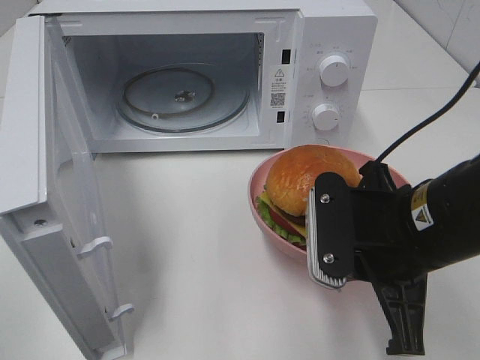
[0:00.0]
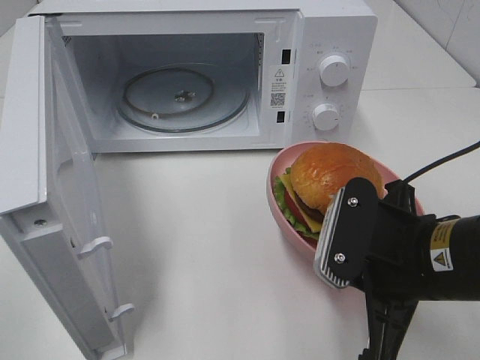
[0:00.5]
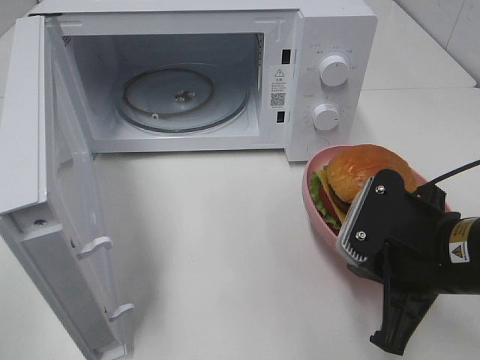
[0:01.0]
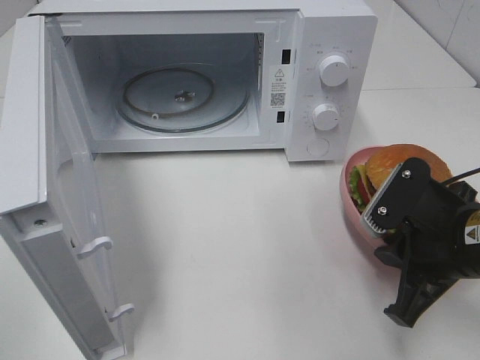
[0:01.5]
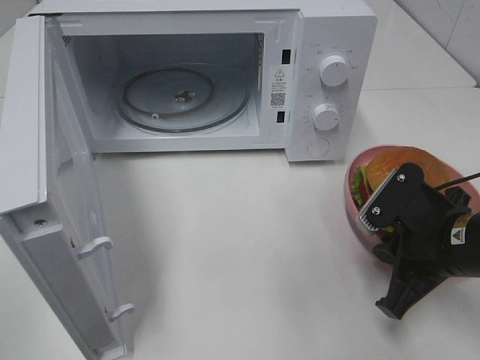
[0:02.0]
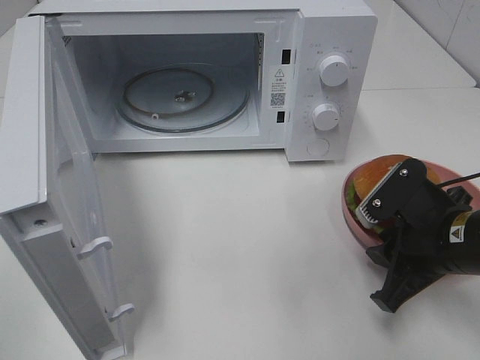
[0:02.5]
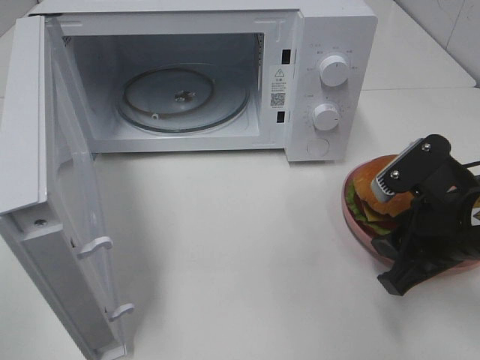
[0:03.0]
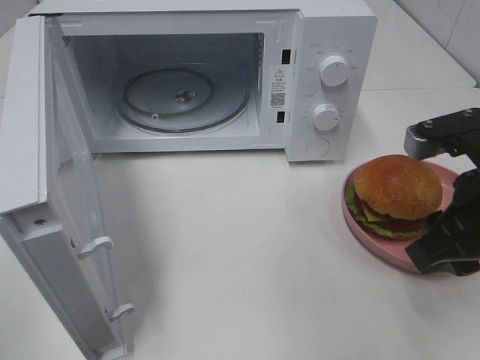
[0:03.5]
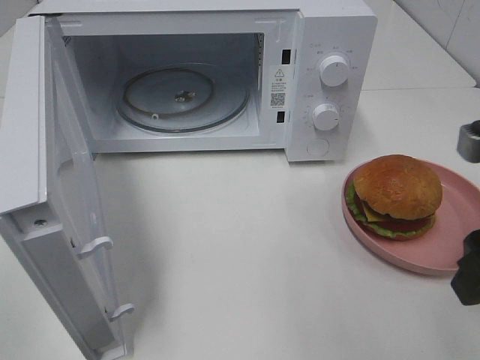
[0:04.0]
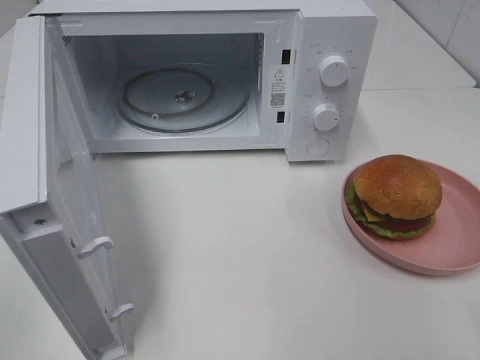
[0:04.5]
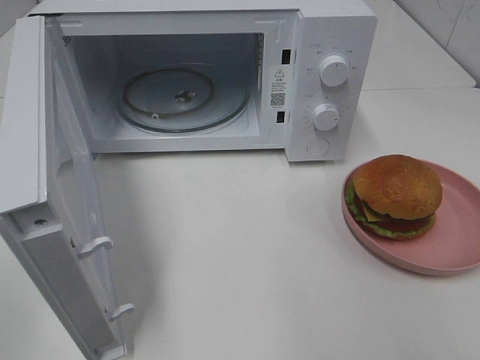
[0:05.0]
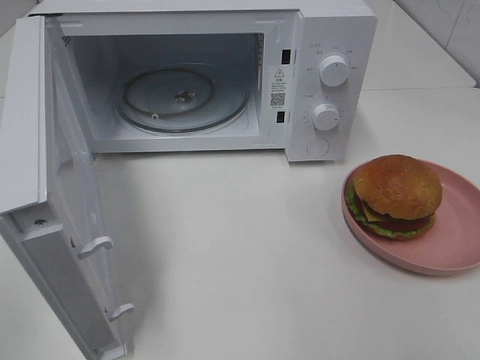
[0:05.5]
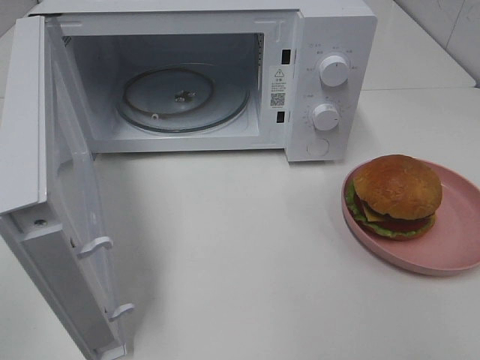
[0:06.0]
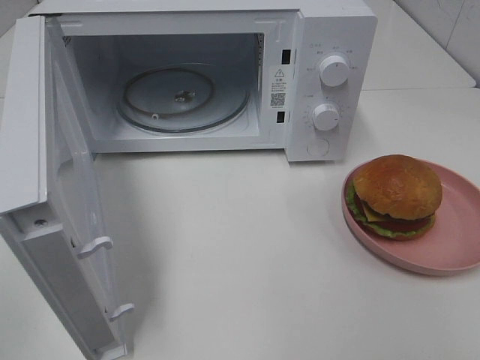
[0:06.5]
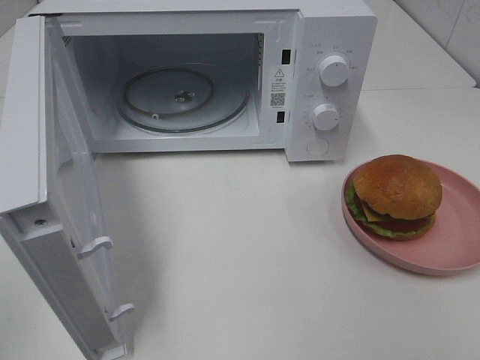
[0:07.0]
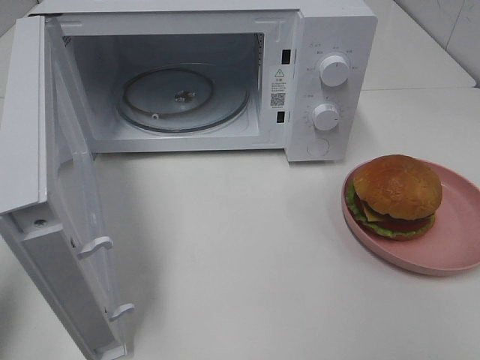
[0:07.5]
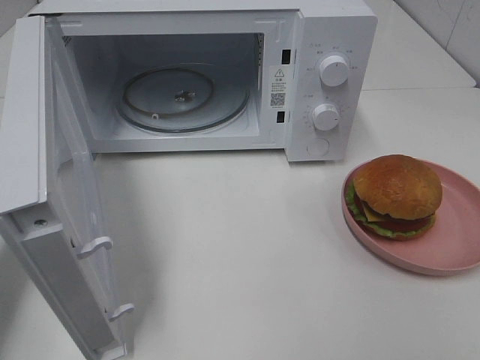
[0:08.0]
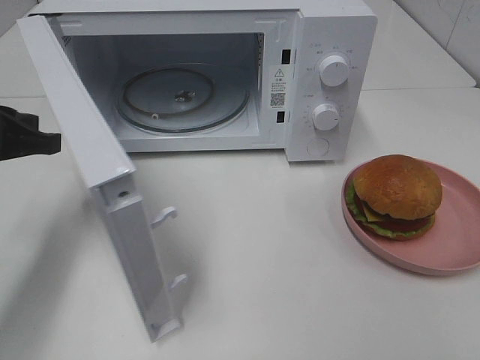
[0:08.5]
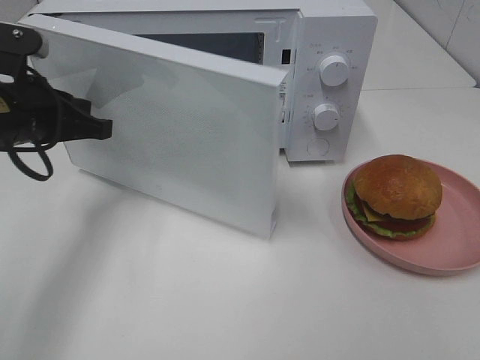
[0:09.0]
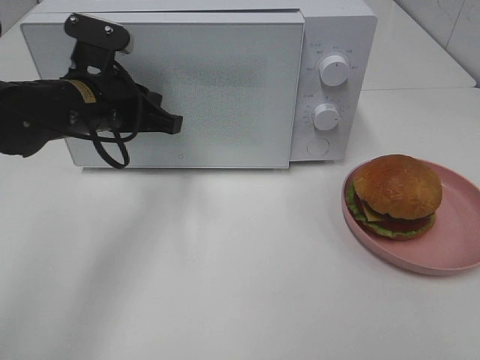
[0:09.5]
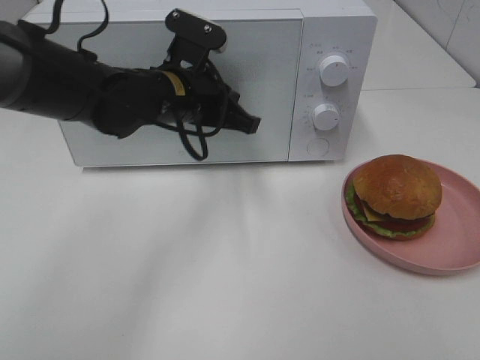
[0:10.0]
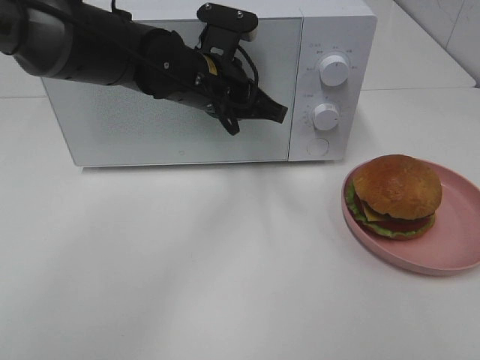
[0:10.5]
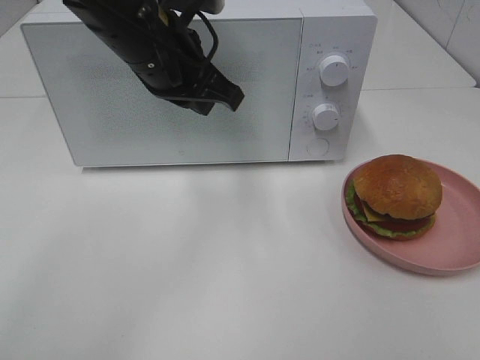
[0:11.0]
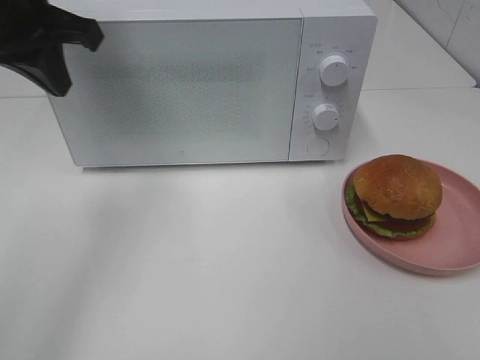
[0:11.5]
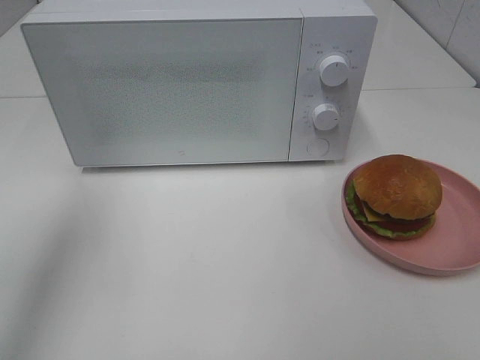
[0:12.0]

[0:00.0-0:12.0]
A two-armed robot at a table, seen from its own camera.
Task of the whole recording: Heat the burger.
Step, 0:00.0 to 0:02.0: Right hand: place the plate on the table.
Step, 0:02.5 to 0:10.5: Left hand: close the microwave door.
0:00.0 to 0:06.0: Neither gripper changes place.
0:06.0 to 0:08.0: The left gripper heads forward, covering roughly 20 cm.
0:08.0 to 0:10.0: The left gripper travels to the right and forward by about 30 cm, and opens its fingers.
0:10.0 to 0:12.0: The left gripper moves to the left, upward and backward, some 30 cm.

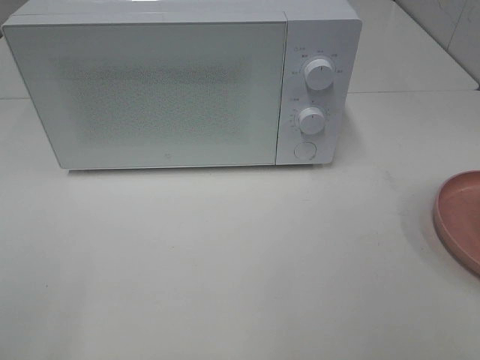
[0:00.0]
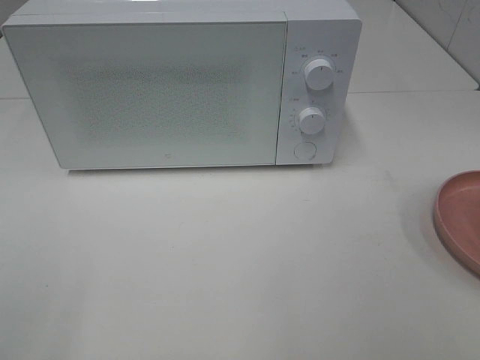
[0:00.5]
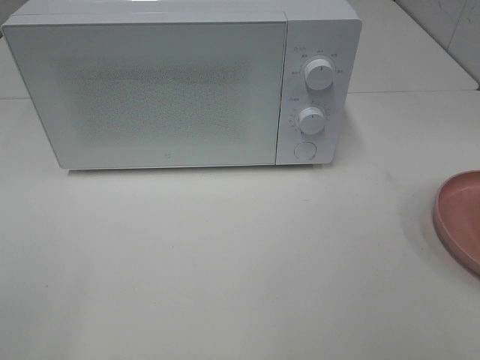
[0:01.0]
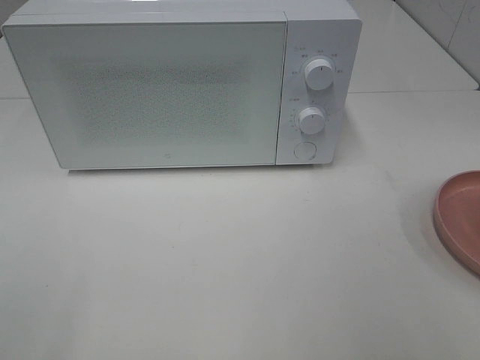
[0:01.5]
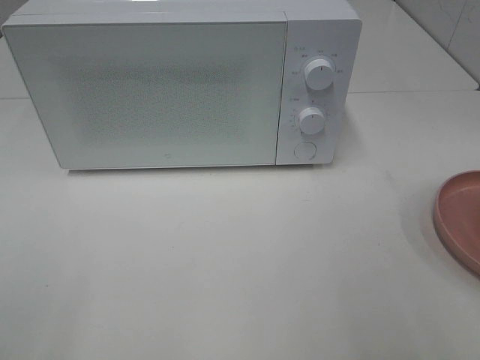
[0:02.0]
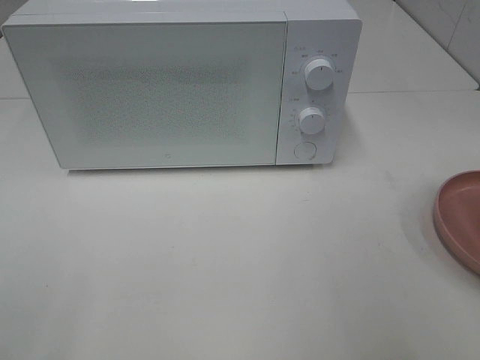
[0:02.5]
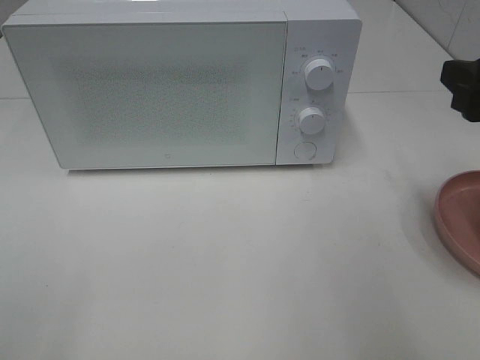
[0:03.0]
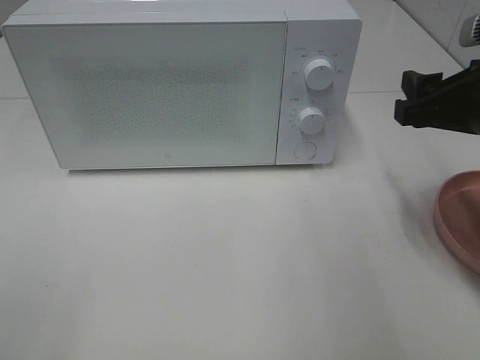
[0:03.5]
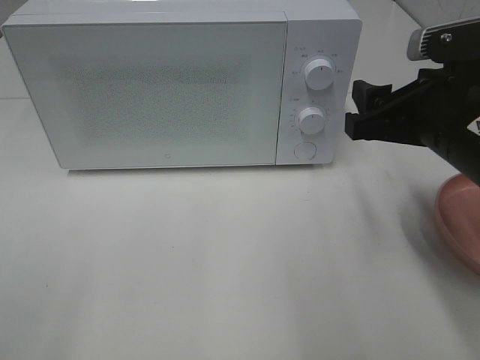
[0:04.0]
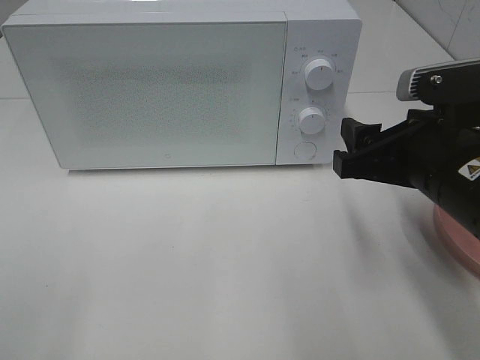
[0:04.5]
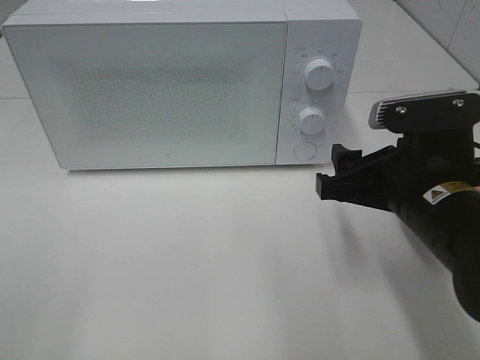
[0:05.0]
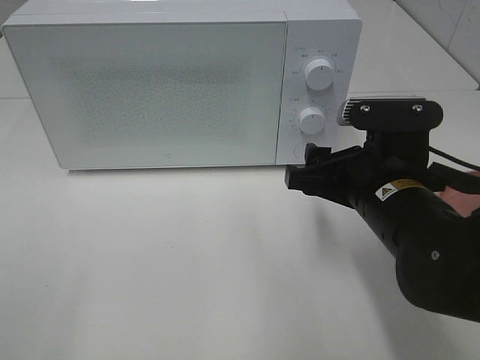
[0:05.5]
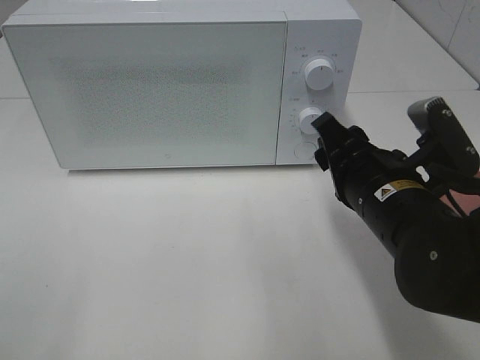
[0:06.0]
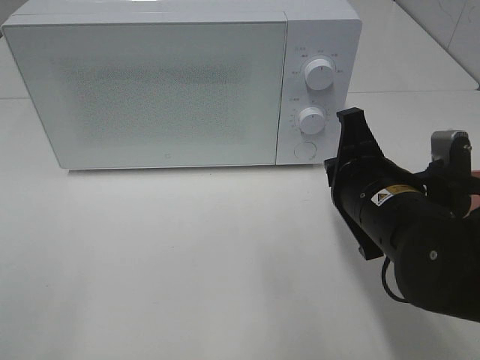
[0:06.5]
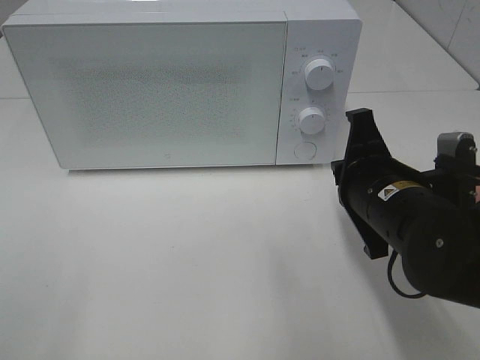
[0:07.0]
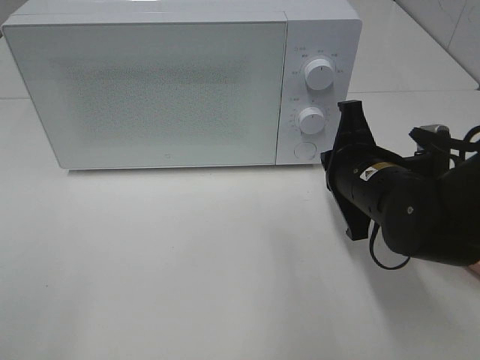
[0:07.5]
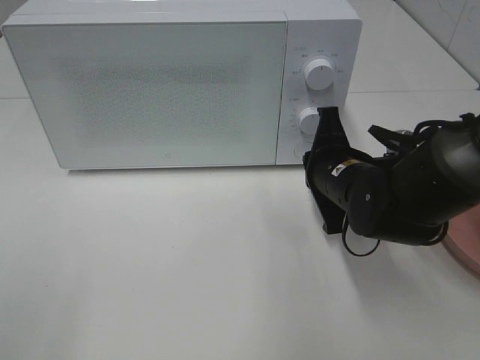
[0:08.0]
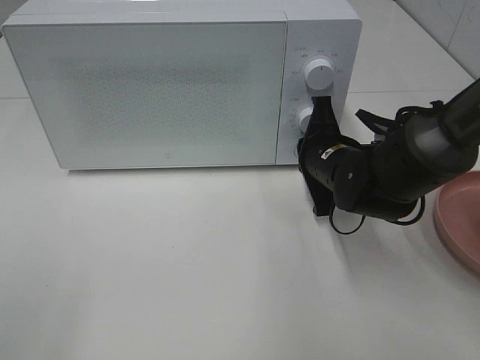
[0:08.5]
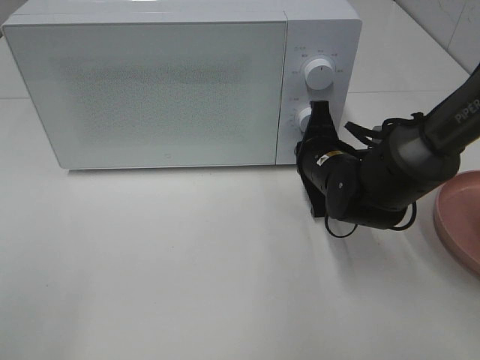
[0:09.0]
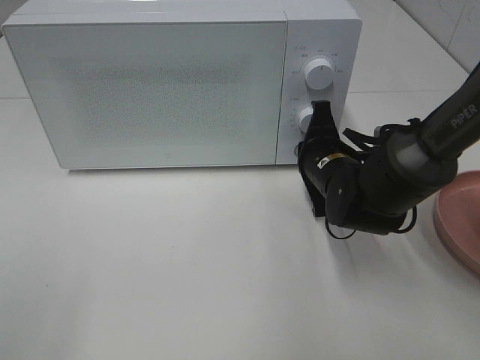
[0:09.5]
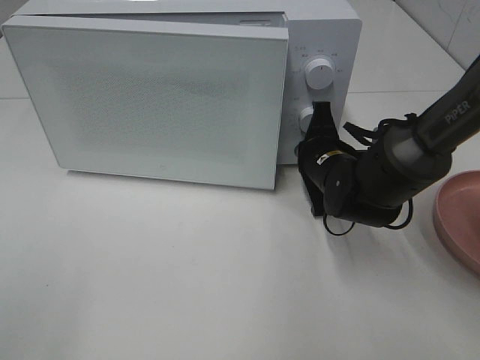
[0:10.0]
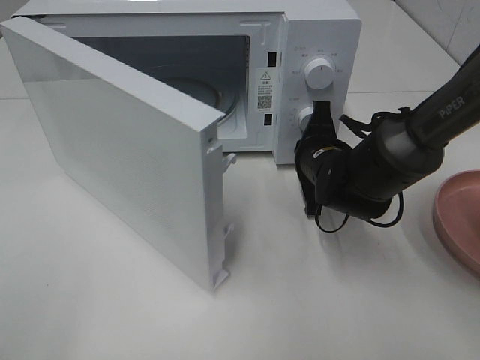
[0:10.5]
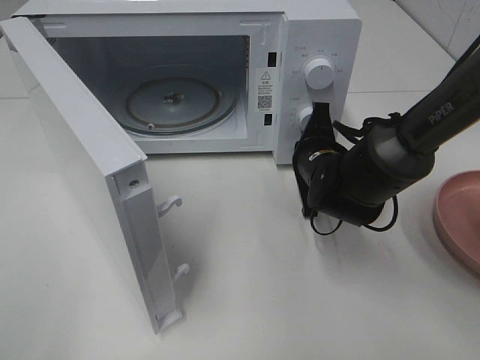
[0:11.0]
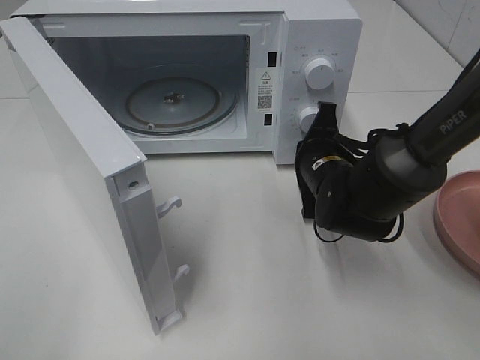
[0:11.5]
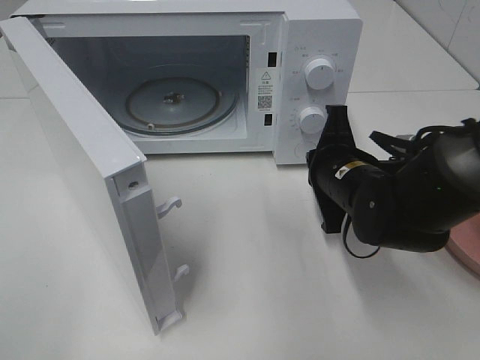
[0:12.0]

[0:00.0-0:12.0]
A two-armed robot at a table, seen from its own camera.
Task of the whole recording: Heat the burger.
Step, 0:00.0 to 0:11.5: Right hand: press the switch.
0:02.0 to 0:04.0: The right gripper is displaced forward, to the left and downward by approximately 20 cm.
0:04.0 to 0:06.0: The right gripper goes some 10 cm downward and to the left.
0:06.0 to 0:08.0: The right gripper travels forward by approximately 10 cm, and closes its fingers.
0:08.0 to 0:10.0: The right gripper moves forward, roughly 5 cm.
0:10.0 to 0:12.0: The right gripper is displaced backward by approximately 5 cm.

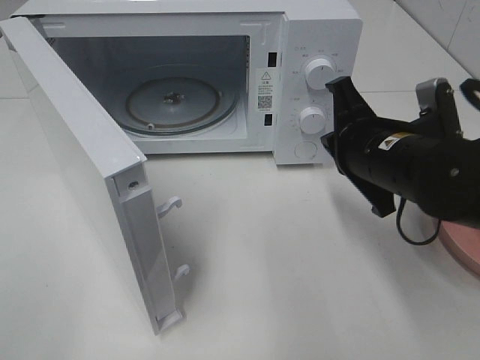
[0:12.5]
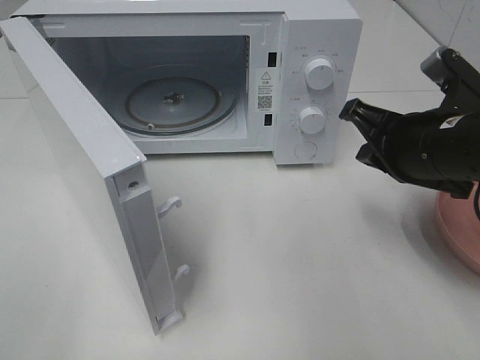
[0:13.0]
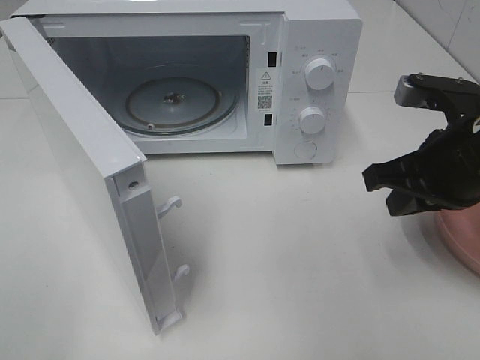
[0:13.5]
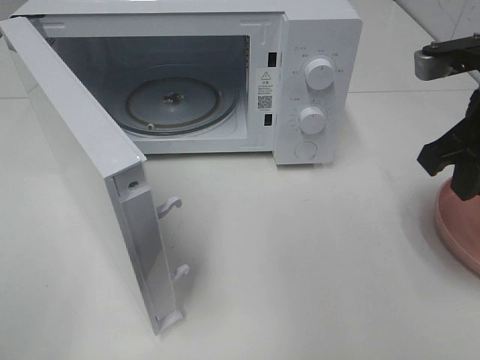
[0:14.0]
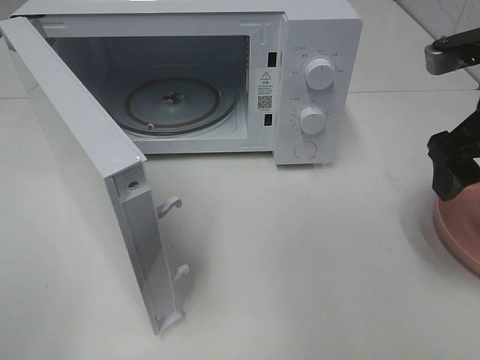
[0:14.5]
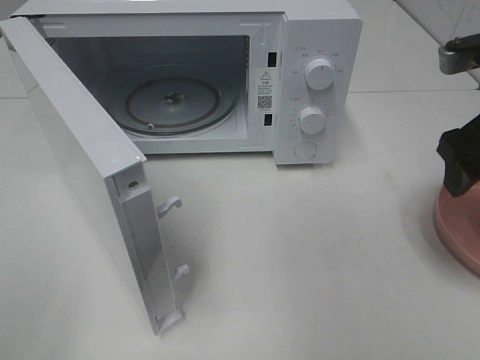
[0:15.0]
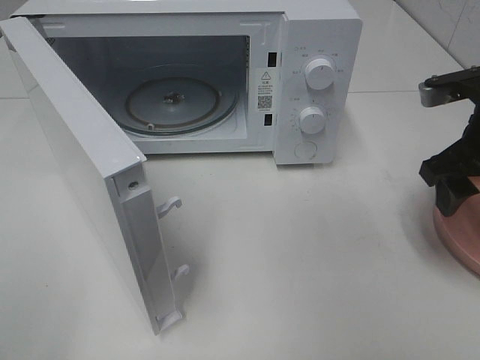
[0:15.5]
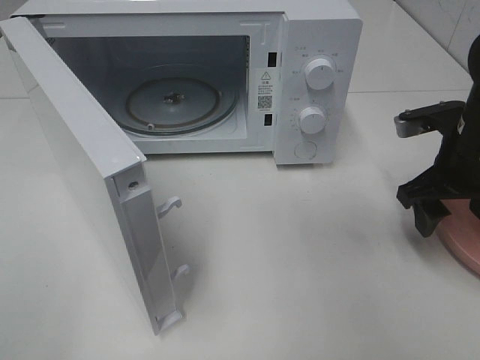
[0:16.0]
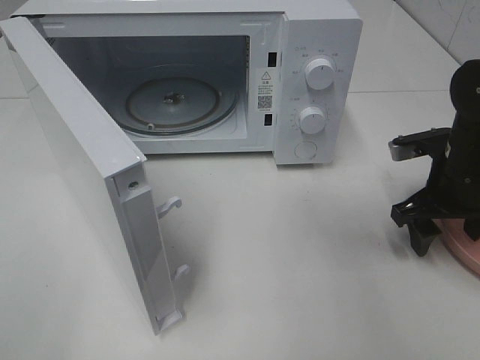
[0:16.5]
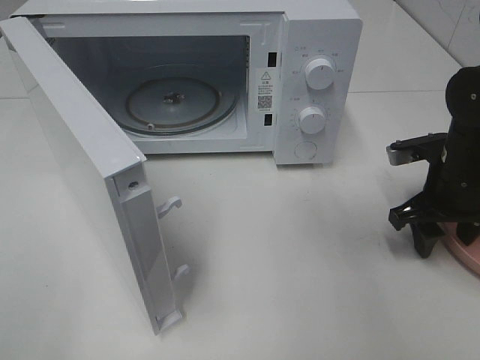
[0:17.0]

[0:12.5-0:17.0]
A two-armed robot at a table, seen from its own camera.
Task of the whole recording: Heat the burger.
0:12.5 to 0:14.5: The right gripper shifts roughly 15 cm upward and to the right, and opens its fingers.
0:14.5 to 0:17.0: The right gripper shifts roughly 15 cm downward.